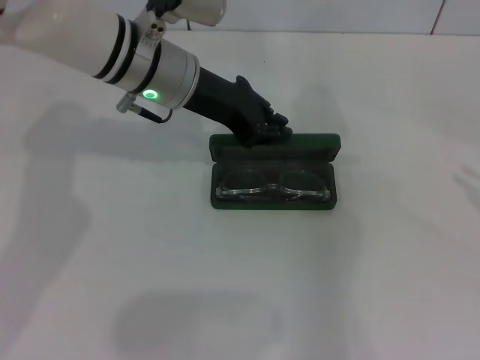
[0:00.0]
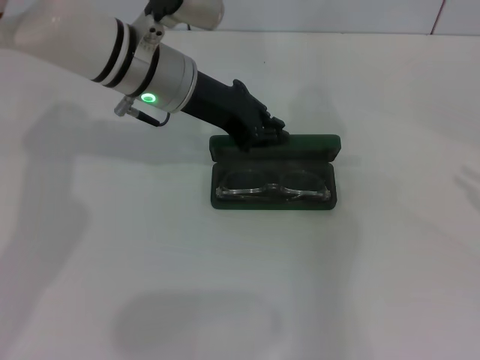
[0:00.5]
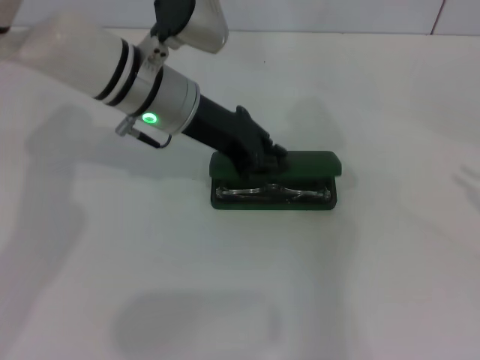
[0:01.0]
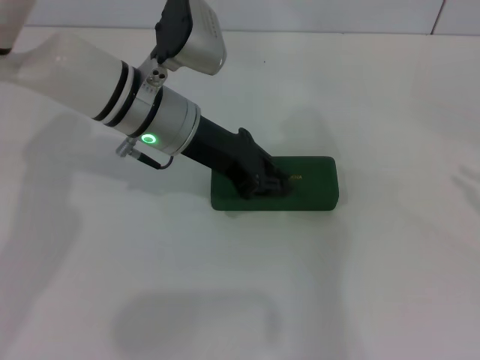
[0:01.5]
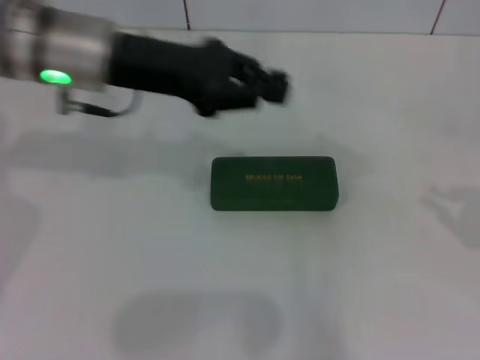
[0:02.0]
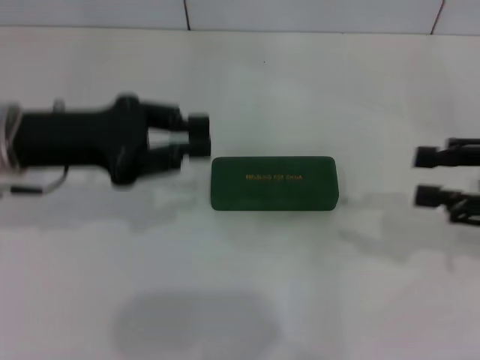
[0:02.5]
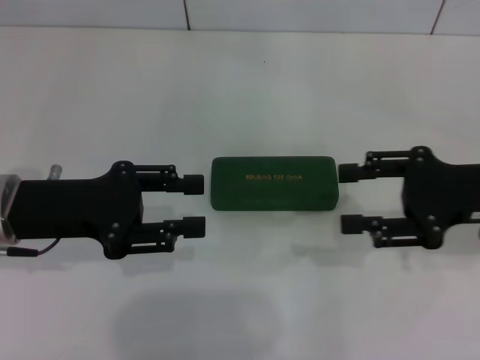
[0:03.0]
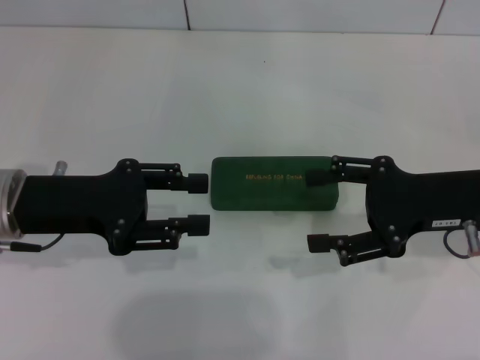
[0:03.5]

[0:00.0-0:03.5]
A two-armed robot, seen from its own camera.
0:00.0 to 0:02.0: The left gripper heads to the left, covering approximately 5 cm.
0:02.0 to 0:03.5: The left gripper moves backward, to the left and downward, roughly 15 cm, and opens up, while the right gripper heads to the left, covering some 15 cm, and opens.

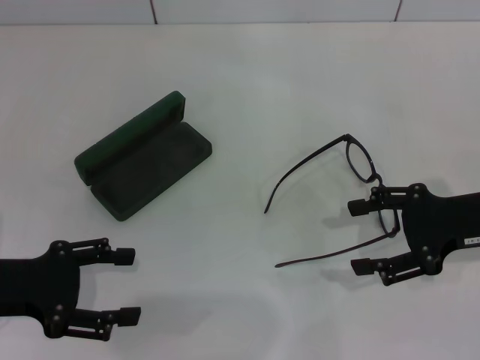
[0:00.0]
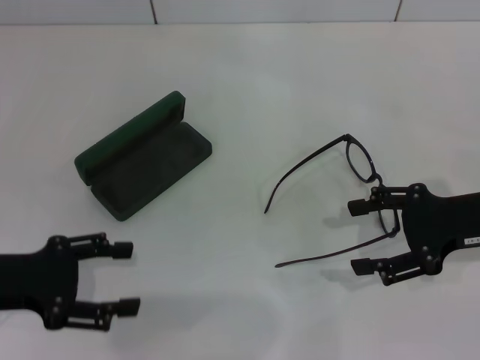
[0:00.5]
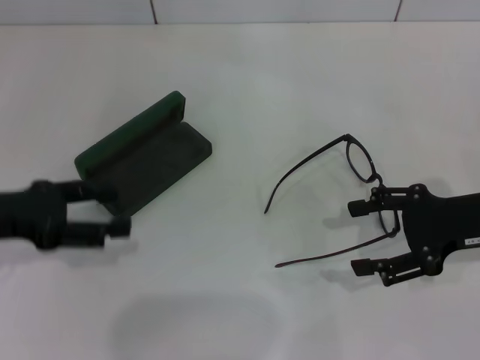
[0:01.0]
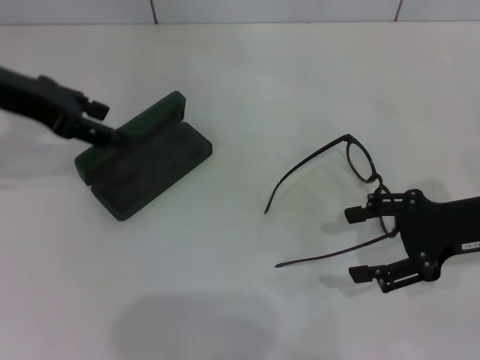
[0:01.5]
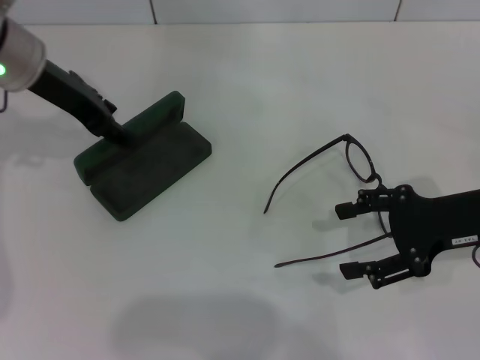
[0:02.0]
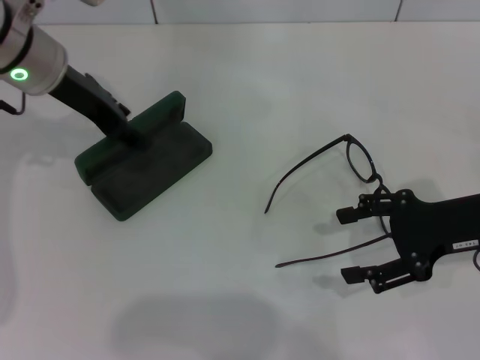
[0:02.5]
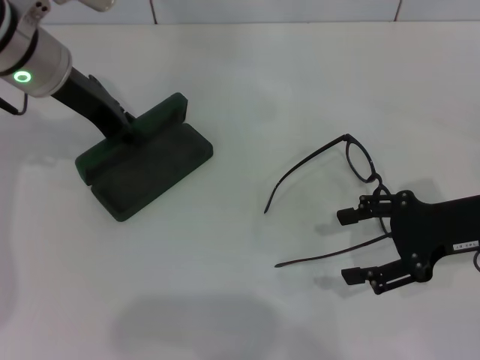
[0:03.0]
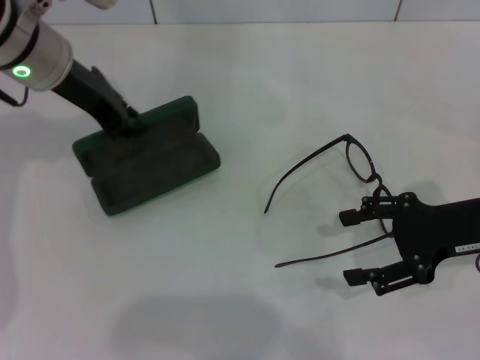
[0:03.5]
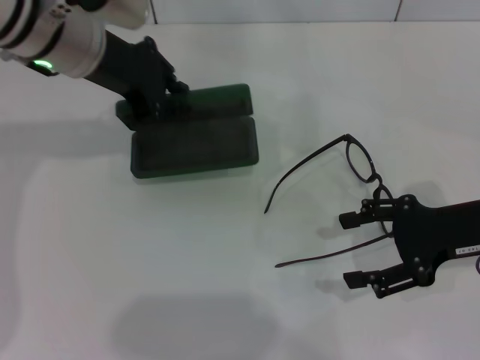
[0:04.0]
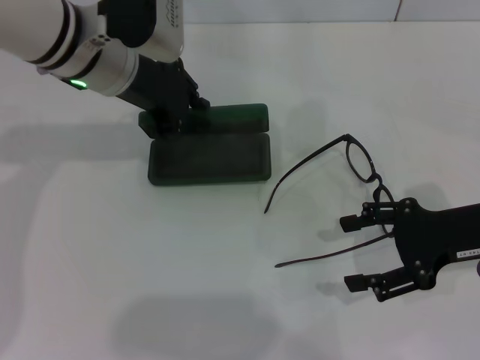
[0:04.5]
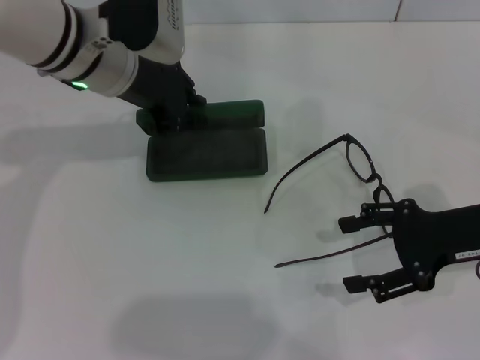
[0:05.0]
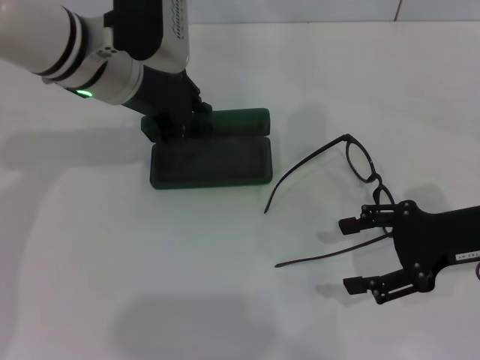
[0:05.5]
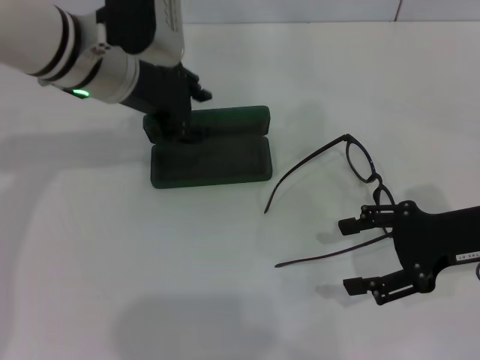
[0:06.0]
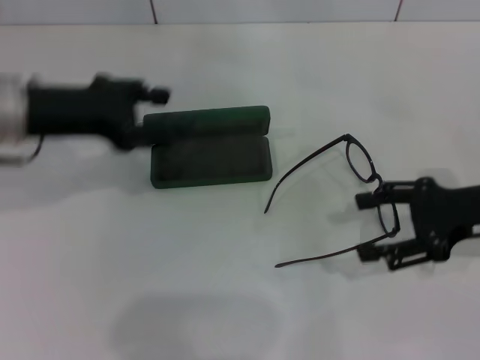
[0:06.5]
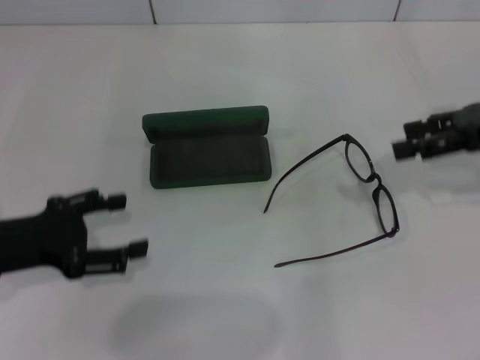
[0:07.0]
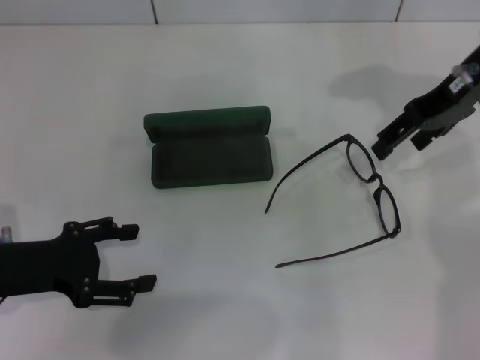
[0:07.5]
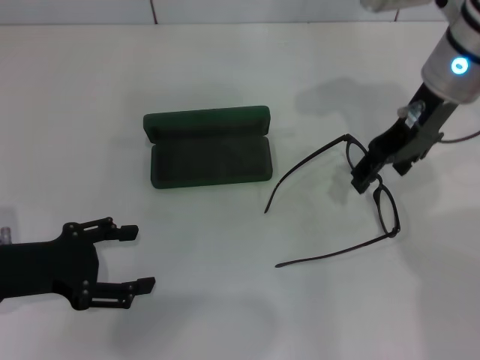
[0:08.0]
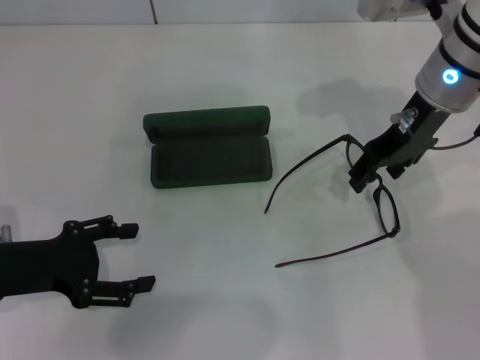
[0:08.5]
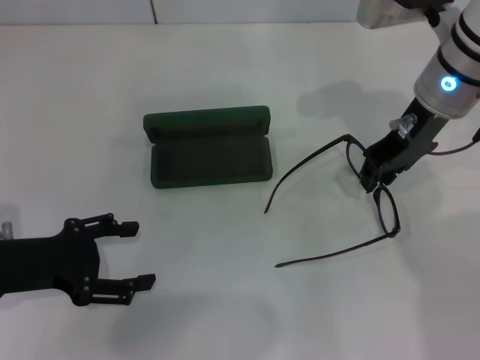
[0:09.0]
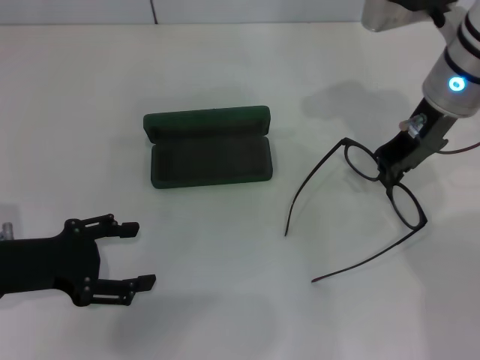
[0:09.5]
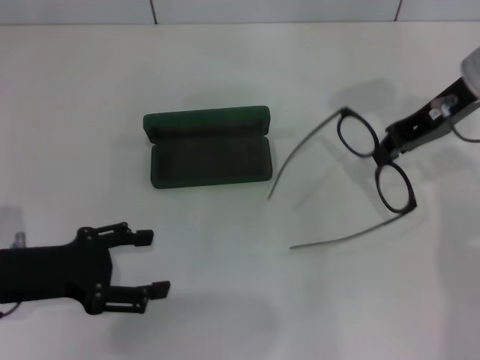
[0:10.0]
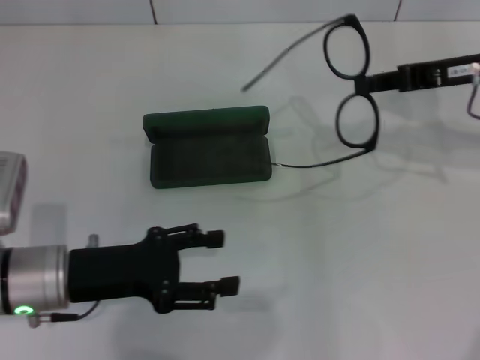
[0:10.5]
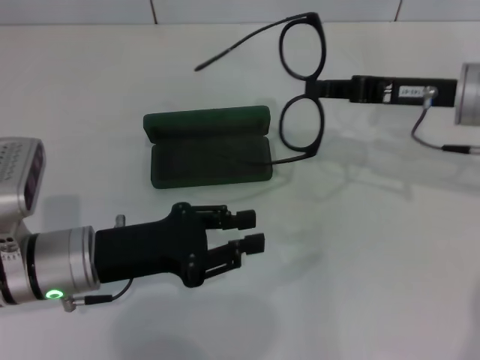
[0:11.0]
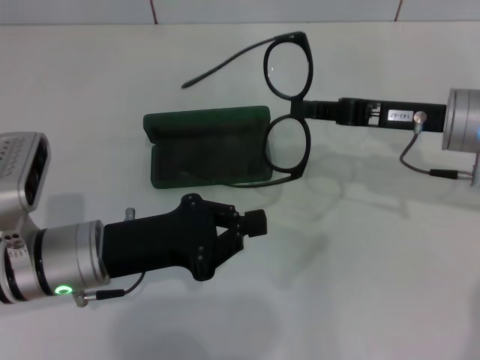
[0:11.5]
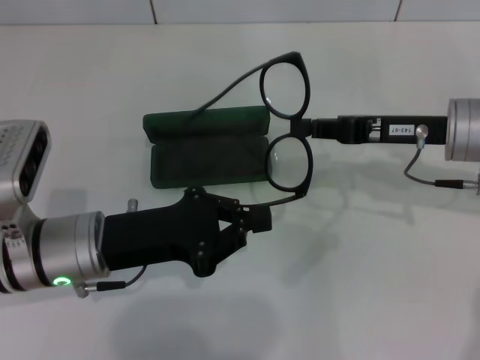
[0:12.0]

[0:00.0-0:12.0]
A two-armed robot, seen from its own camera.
Step, 0:00.0 to 0:03.0: Grab the glasses case with your left hand.
Step, 0:03.5 to 0:05.5: Place the glasses case in the center of the table with your left hand.
Step, 0:06.0 to 0:09.0: Grab the eyeglass frame with your right hand.
0:00.0 to 0:02.0: The left gripper is displaced forward, upward and to the right by approximately 25 cm.
0:02.0 to 0:04.0: The left gripper goes about 5 cm to the right, and closes.
0:04.0 to 0:06.0: There are only small adjustments of the grippers.
0:06.0 to 0:08.0: The right gripper is displaced forward, to the left and upward by about 20 cm; the left gripper moves backward, to the left and downward, about 25 cm, and opens up.
0:08.0 to 0:10.0: The right gripper heads to the right, covering roughly 5 cm, and closes its fingers.
0:10.0 to 0:12.0: The left gripper is displaced to the right by roughly 10 cm, and closes up. The right gripper travels downward by roughly 5 cm.

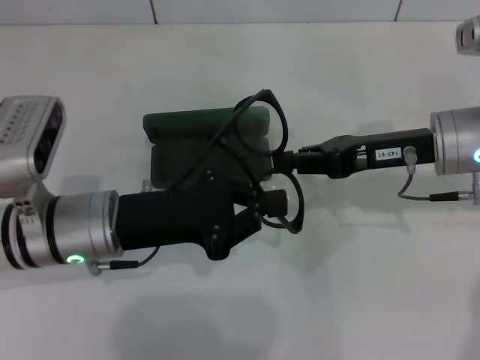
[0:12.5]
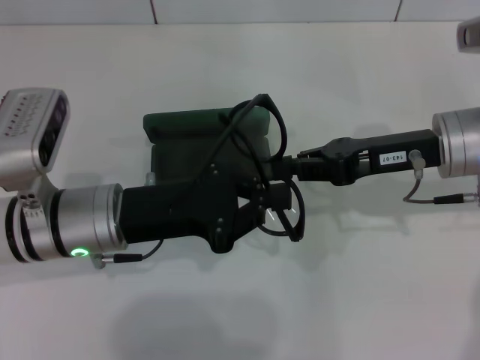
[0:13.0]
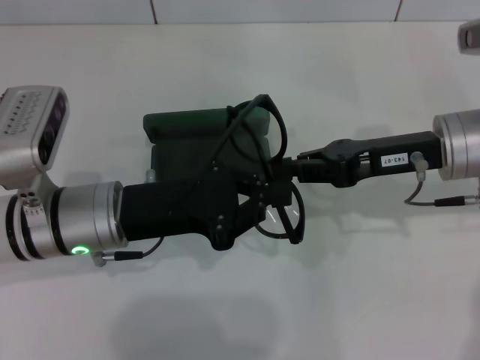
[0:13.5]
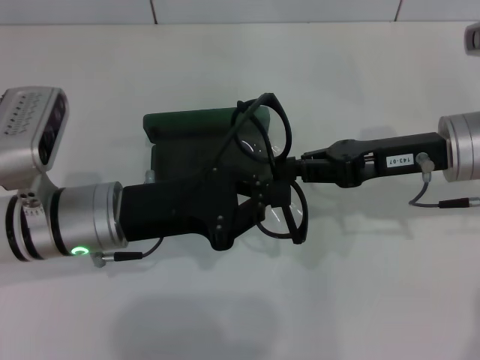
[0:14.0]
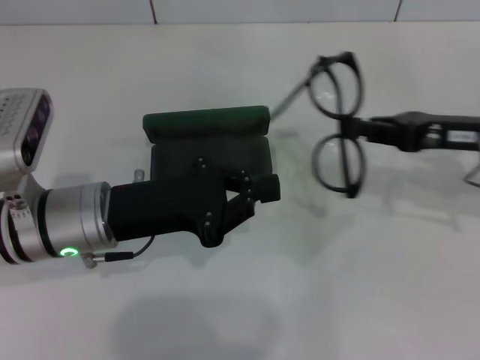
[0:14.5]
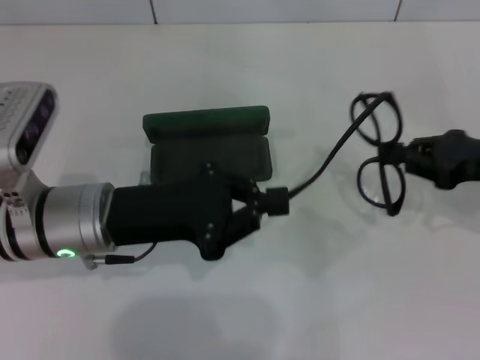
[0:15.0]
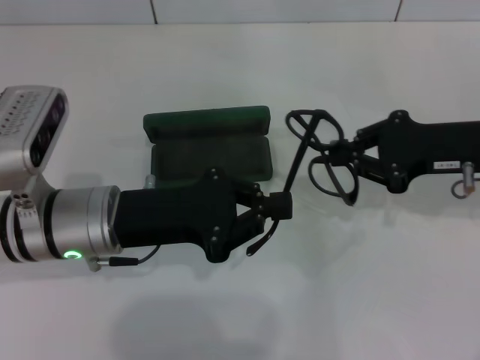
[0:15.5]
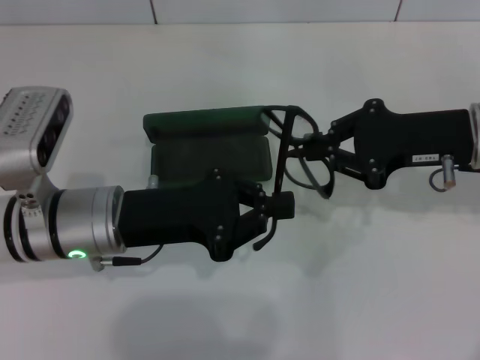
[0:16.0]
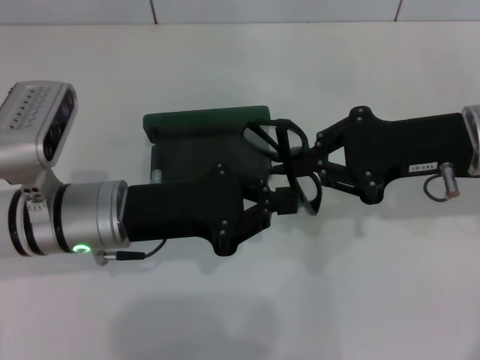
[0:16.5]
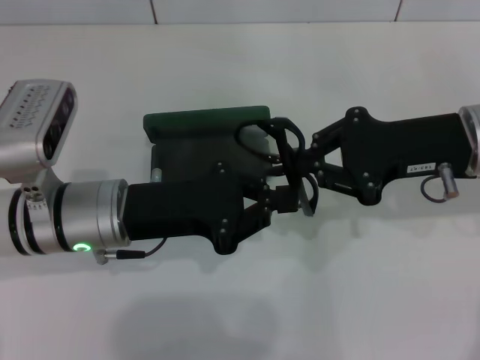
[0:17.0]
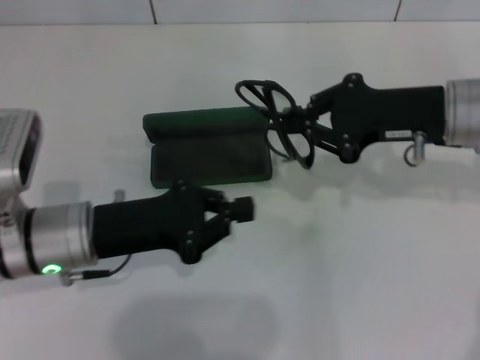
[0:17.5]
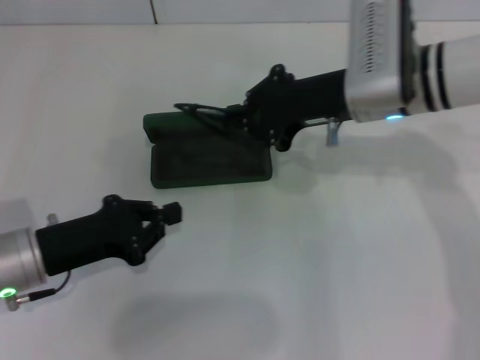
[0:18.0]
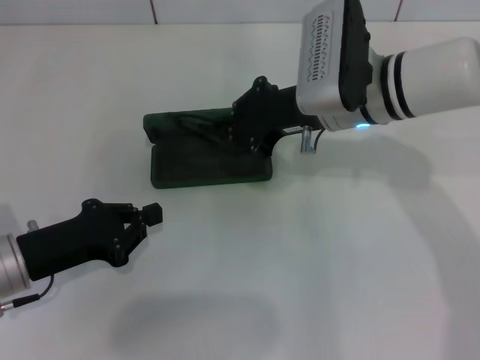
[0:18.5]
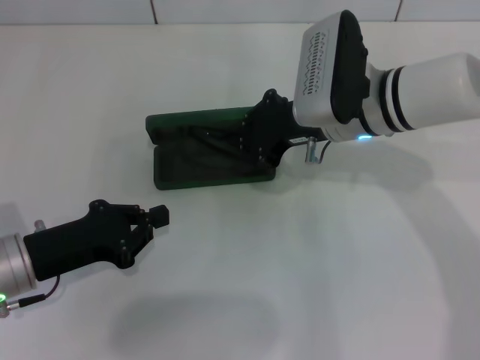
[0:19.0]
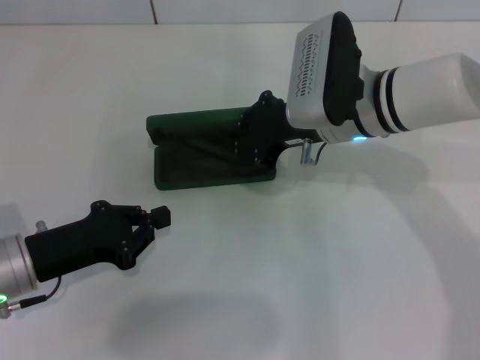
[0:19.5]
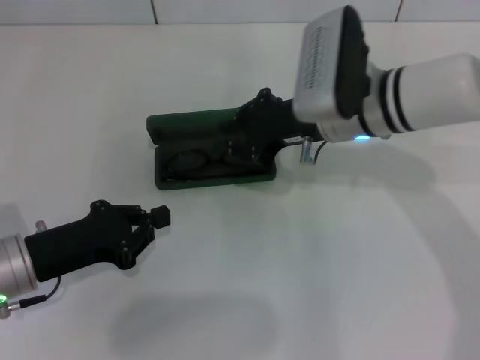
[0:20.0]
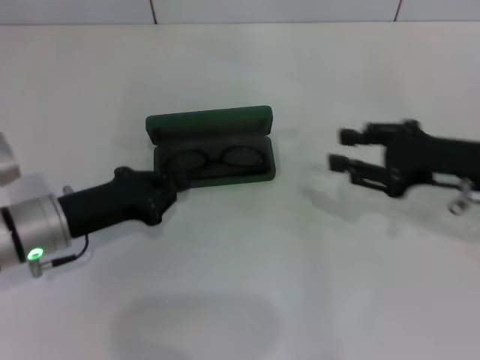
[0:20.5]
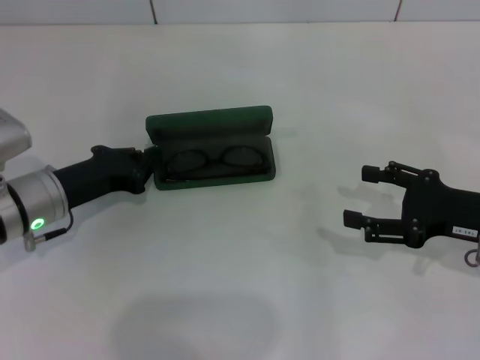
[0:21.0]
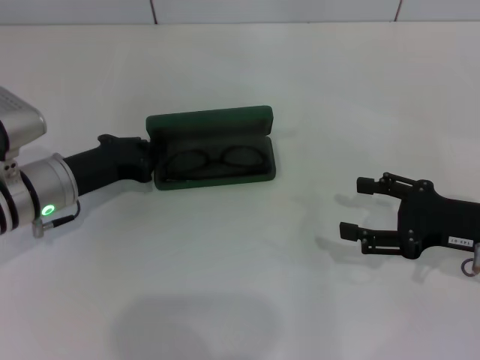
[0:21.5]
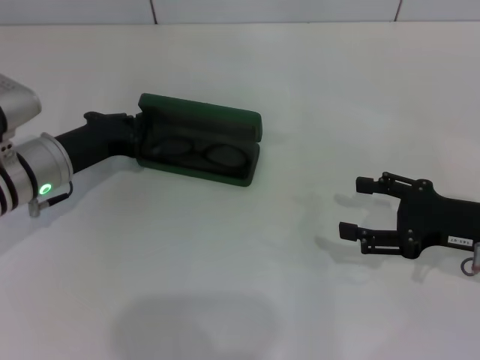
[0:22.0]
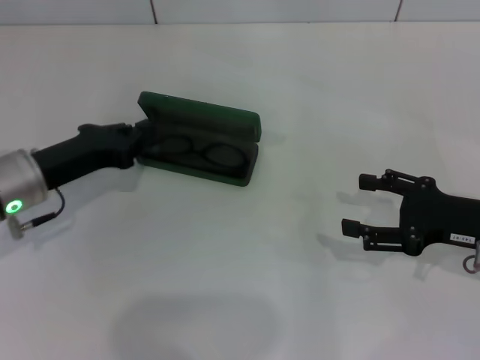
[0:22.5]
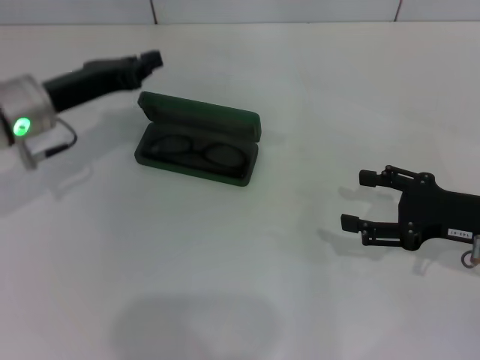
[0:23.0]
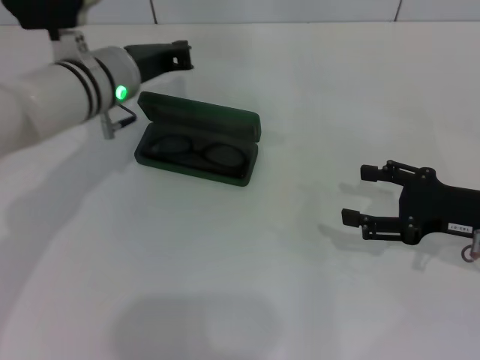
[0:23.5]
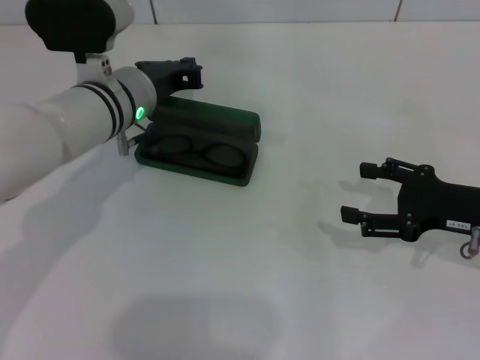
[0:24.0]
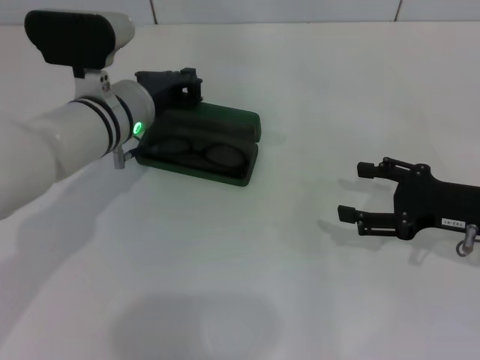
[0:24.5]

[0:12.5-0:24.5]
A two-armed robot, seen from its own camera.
Step, 0:12.5 to 0:17.0: Lift the glasses with your right hand.
Step, 0:17.5 to 0:19.5: Put the glasses into the case with your right hand.
0:12.5 to 0:14.5: The right gripper heads to the right, covering some 5 cm.
0:14.5 to 0:16.5: The right gripper shifts by about 5 cm.
0:16.5 to 0:18.5: The left gripper moves to the left and downward, roughly 10 cm; the right gripper heads to the left and forward, covering some 15 cm.
0:18.5 to 0:20.5: The right gripper goes roughly 15 cm to the right and backward.
0:20.5 to 0:22.5: The right gripper ends up some 5 cm from where it was, and opens its fingers.
0:22.5 to 0:24.5: The left gripper moves to the right and forward, approximately 15 cm.
